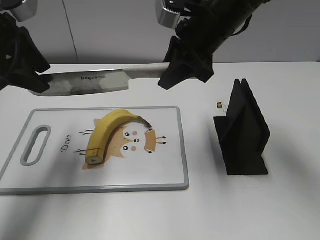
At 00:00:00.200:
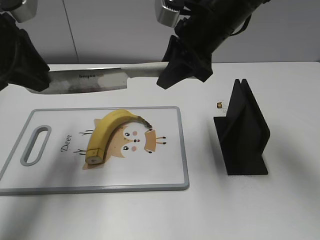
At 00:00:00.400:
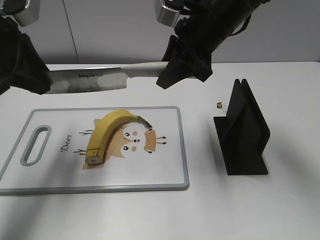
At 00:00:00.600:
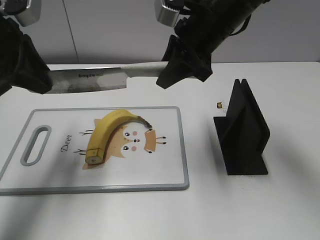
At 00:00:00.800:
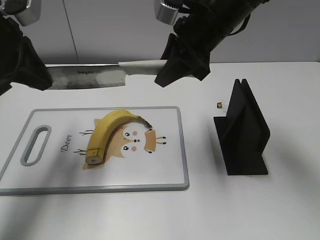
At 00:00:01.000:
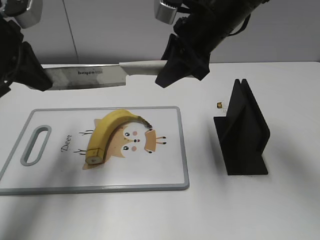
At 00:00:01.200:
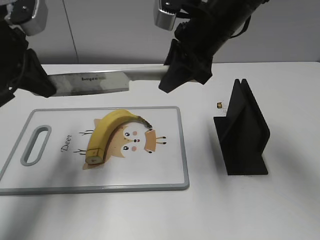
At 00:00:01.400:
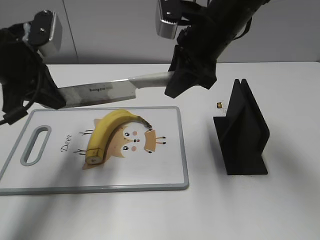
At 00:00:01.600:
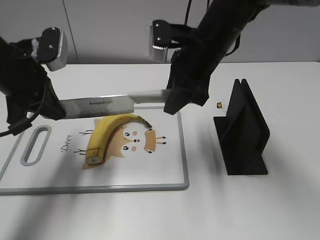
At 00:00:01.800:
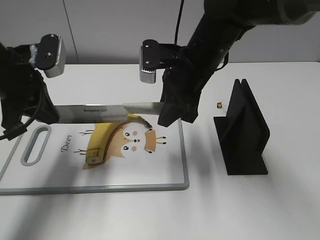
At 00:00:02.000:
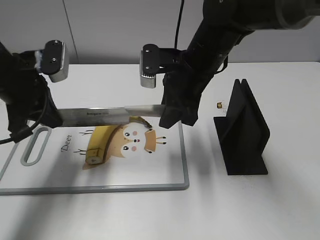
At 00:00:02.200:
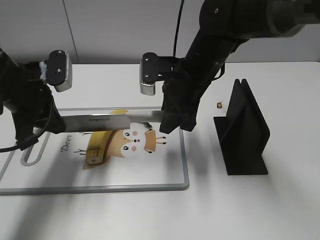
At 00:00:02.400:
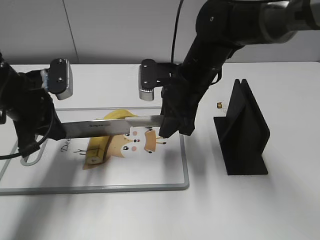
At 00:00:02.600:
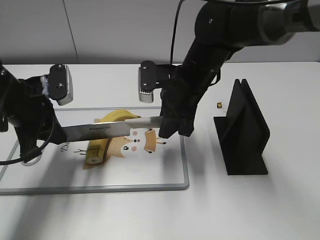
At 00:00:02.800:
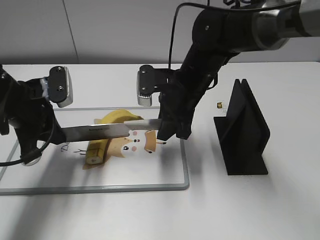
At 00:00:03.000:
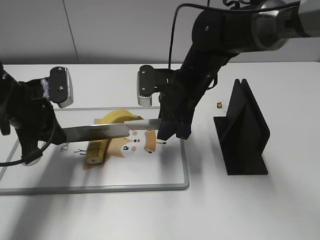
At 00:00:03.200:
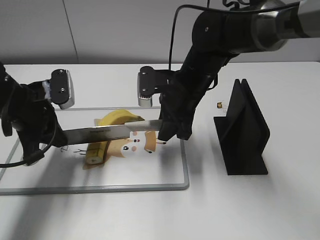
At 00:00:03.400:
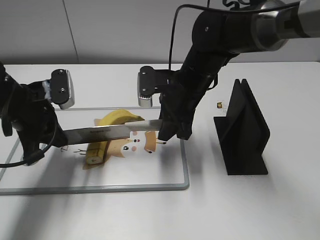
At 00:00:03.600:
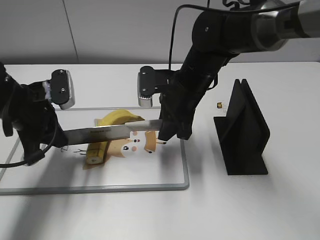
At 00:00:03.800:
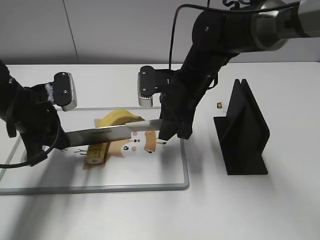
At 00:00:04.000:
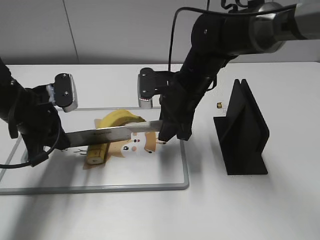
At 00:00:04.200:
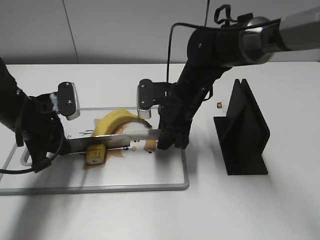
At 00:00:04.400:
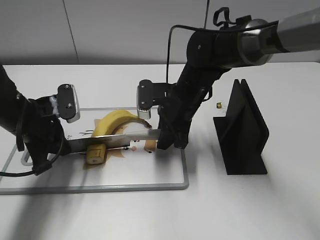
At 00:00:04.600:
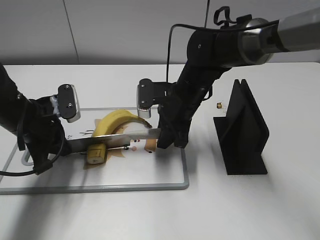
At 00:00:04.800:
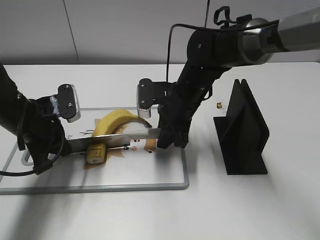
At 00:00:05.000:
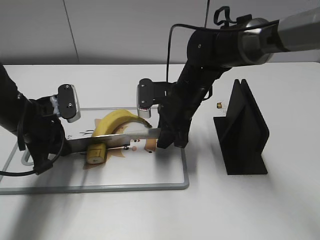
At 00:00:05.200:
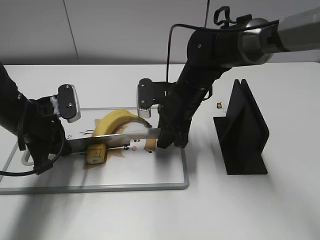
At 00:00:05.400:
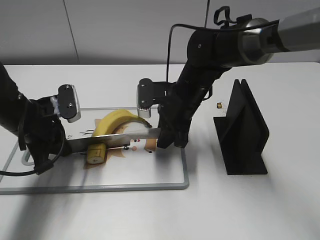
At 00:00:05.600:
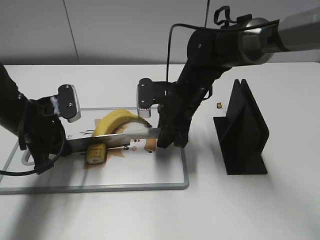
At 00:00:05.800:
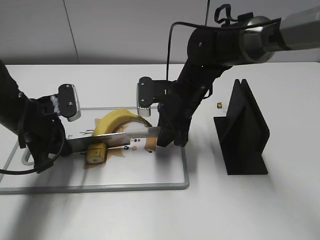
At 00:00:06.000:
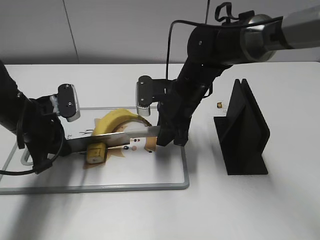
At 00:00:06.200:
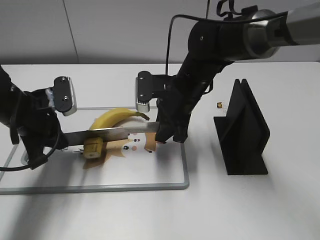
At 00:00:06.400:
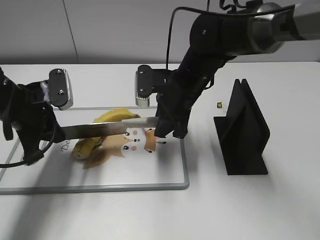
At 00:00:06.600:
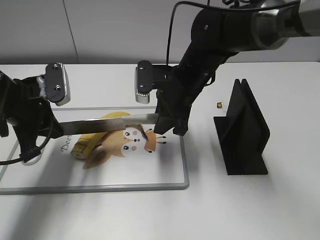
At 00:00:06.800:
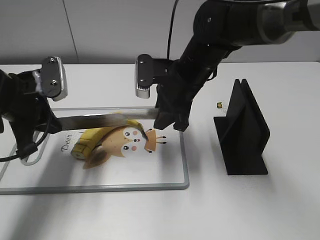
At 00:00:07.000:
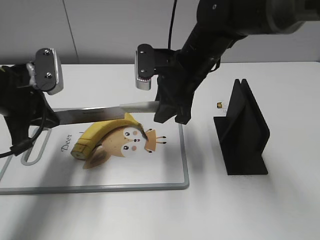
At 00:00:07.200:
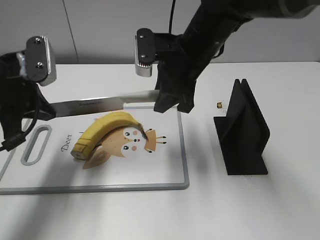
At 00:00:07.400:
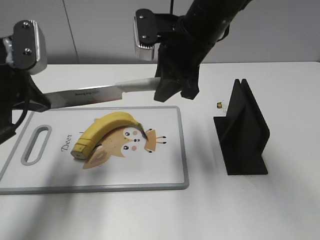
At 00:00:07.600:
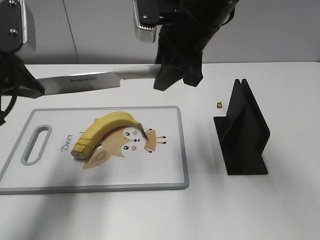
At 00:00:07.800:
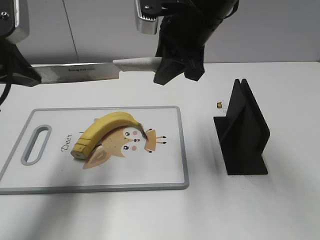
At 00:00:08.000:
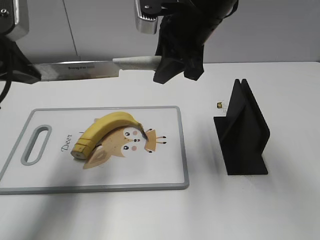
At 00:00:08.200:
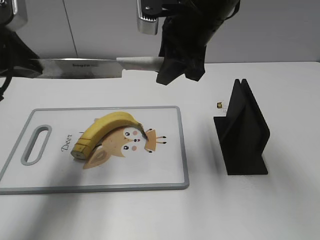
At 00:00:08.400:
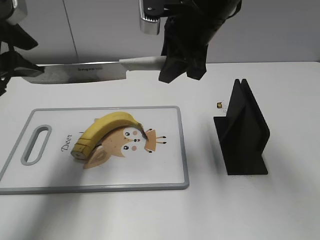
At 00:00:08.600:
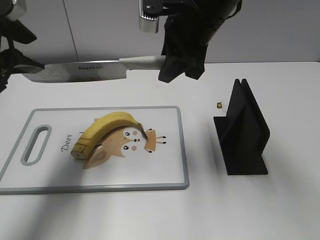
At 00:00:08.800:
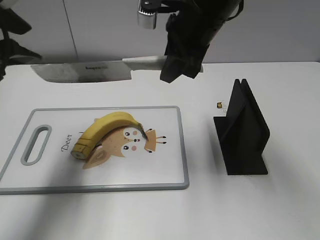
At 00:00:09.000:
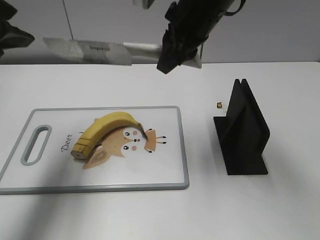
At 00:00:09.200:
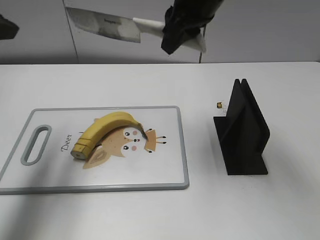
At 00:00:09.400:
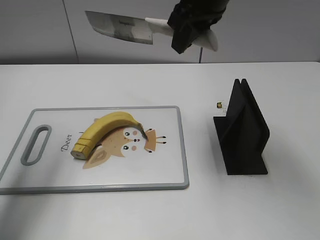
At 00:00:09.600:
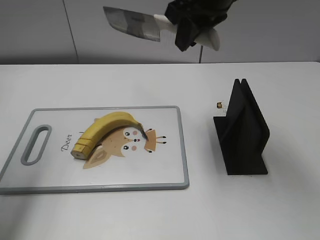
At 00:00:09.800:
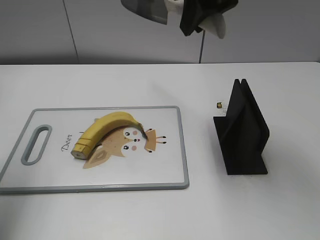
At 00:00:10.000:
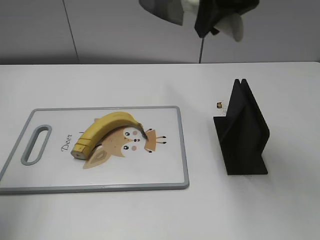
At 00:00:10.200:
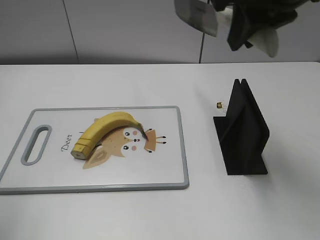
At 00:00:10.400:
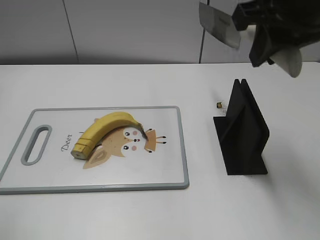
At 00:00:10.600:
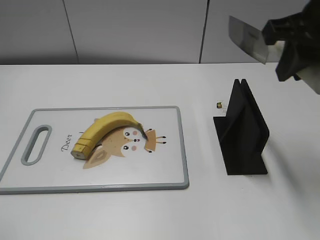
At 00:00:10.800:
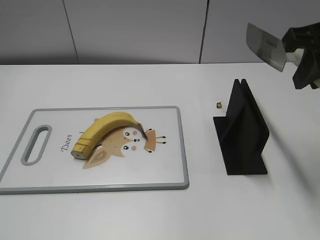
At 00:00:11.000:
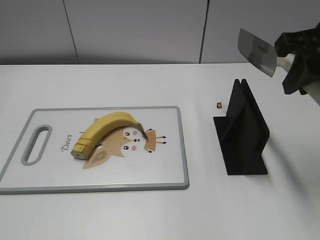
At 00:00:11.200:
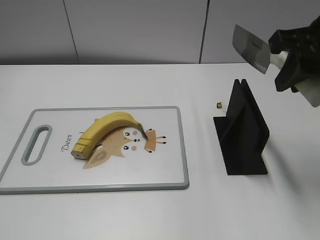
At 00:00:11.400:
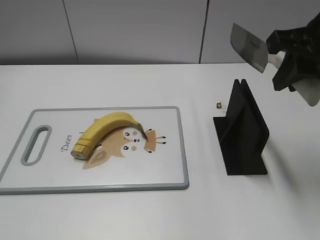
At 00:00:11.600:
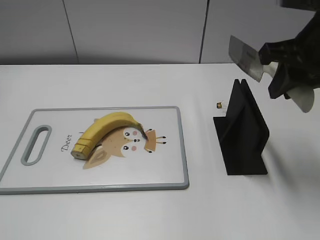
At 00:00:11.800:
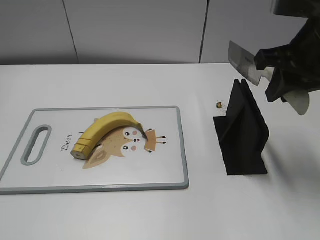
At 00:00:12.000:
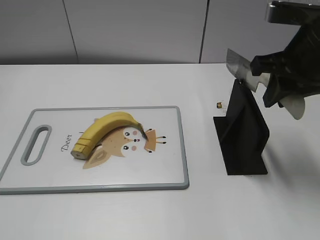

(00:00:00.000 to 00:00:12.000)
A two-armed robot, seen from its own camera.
Task of the whole recording: cut banana.
Step, 00:00:00.000 - 00:00:04.000: Hold the blade with your left hand.
Step, 00:00:04.200 - 00:00:10.200: Cut the banana with your right hand.
00:00:00.000 - 00:00:01.600: The left gripper goes some 5 cm downward, and closes its fingers.
00:00:01.600 - 00:00:03.000: Both grippers move downward, roughly 5 cm.
00:00:03.000 - 00:00:04.400: There are only small adjustments of the grippers.
00:00:04.400 - 00:00:06.000: Both grippers stay about where they are.
00:00:06.000 - 00:00:07.600: Both grippers travel together upward, about 15 cm.
00:00:07.600 - 00:00:09.000: The left gripper moves upward, about 5 cm, and opens.
00:00:09.000 - 00:00:10.400: The left gripper goes about 15 cm backward and to the left. The right gripper shifts about 15 cm to the right, backward and upward.
00:00:10.400 - 00:00:12.000: The right gripper is displaced downward by about 10 cm.

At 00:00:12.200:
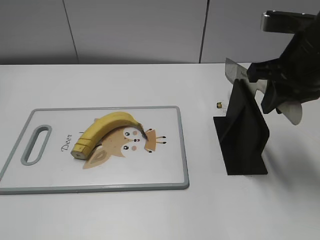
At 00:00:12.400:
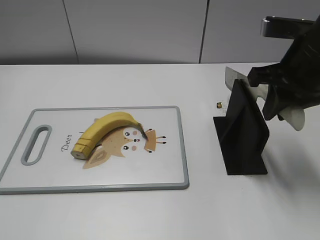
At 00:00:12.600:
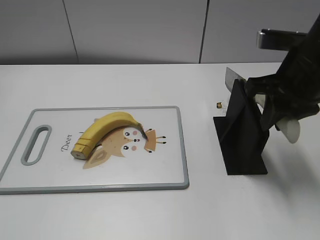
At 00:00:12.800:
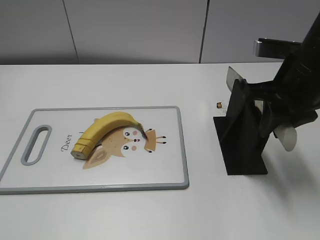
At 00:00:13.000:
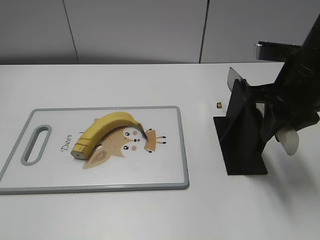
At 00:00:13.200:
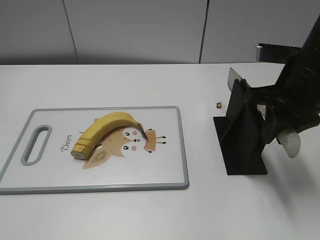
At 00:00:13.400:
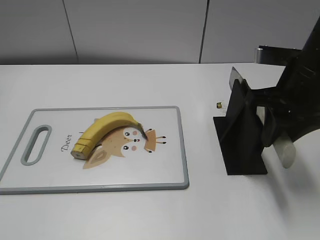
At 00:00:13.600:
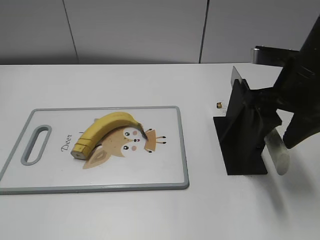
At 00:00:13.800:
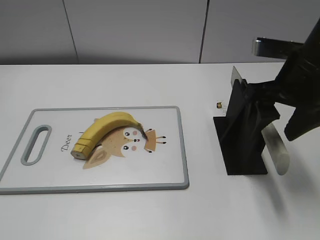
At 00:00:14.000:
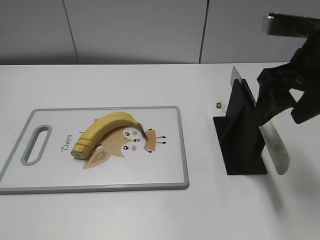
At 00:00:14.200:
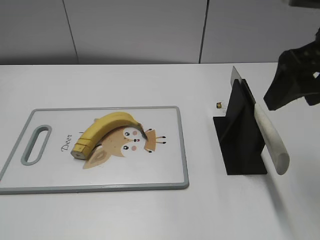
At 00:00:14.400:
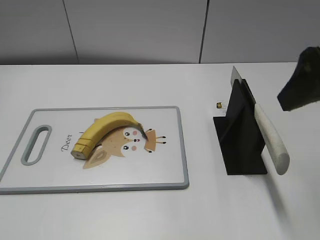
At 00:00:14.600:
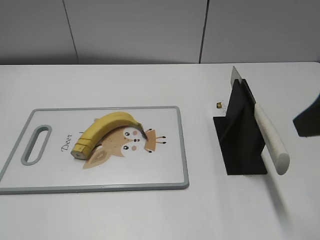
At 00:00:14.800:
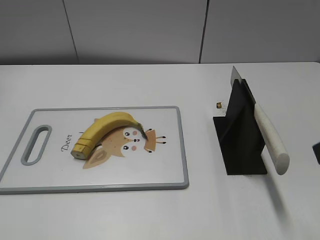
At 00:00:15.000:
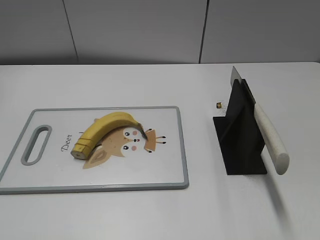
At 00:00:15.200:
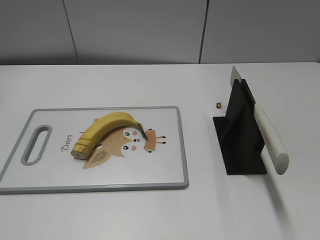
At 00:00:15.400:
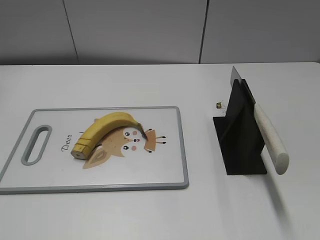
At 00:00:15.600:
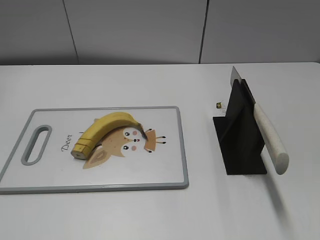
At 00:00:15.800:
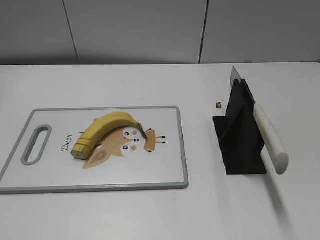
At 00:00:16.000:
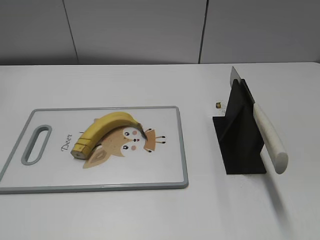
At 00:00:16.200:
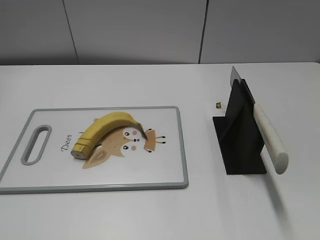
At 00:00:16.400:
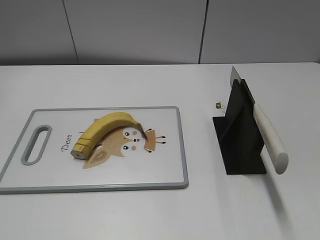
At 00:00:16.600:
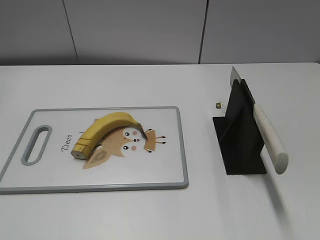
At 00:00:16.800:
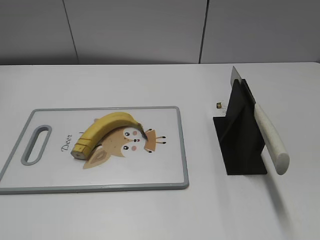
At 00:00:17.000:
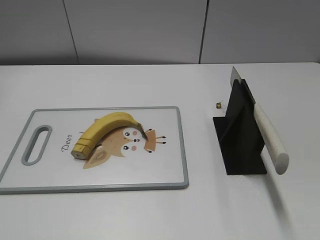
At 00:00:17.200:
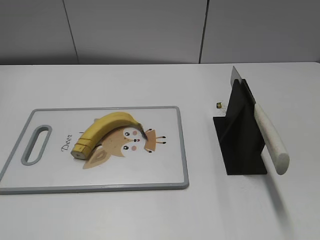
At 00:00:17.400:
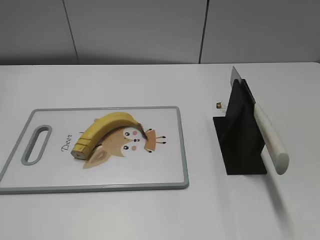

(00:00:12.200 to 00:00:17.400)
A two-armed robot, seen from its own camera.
Task of the whole recording: cut banana.
Step, 00:00:13.400 - 00:00:17.400: Place the knife on the storage rack with your right hand.
00:00:12.200 - 00:00:14.000: The right gripper opens up.
00:00:14.000 - 00:00:15.600: The right gripper travels backward by about 25 cm.
